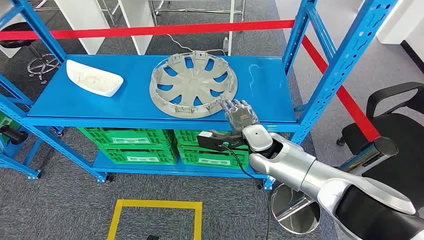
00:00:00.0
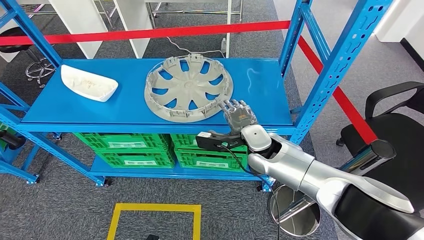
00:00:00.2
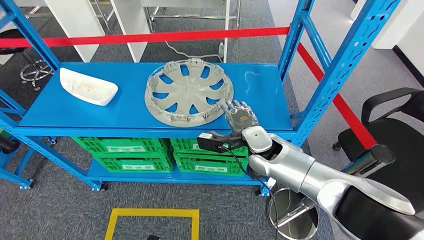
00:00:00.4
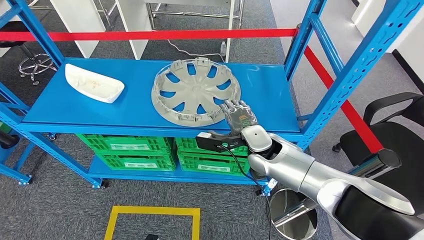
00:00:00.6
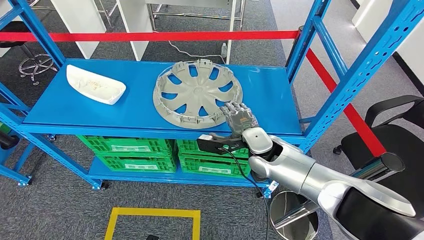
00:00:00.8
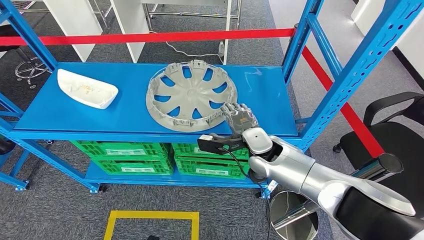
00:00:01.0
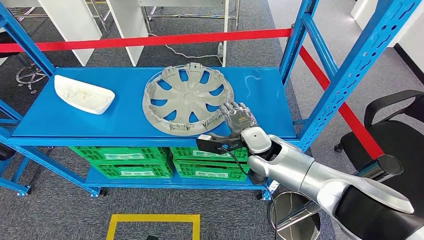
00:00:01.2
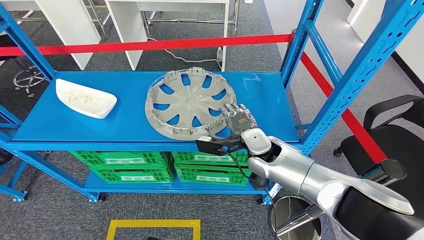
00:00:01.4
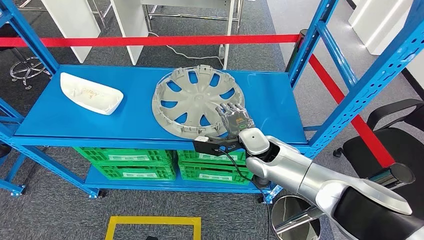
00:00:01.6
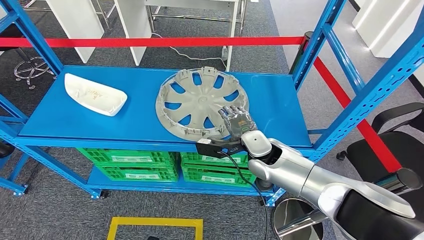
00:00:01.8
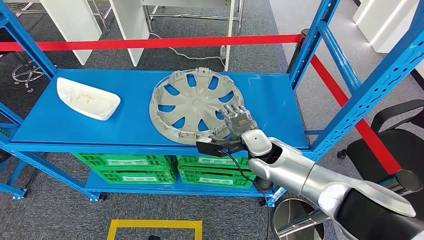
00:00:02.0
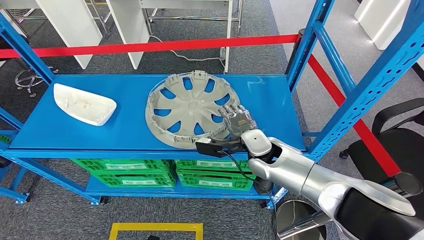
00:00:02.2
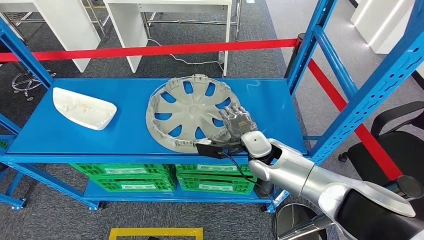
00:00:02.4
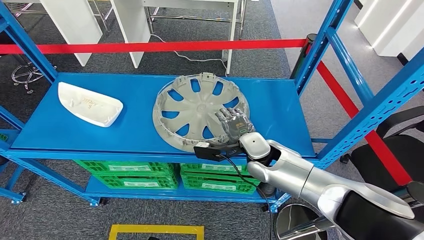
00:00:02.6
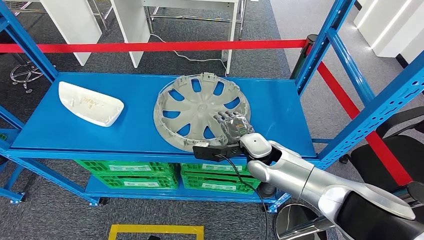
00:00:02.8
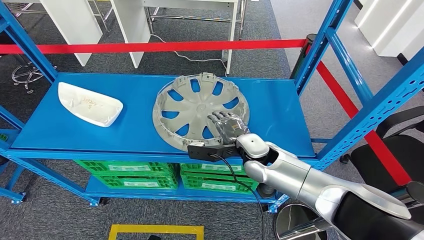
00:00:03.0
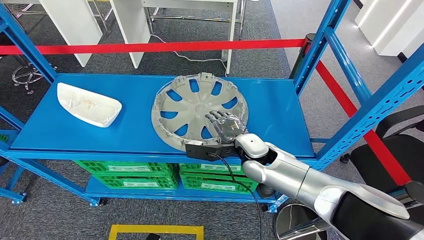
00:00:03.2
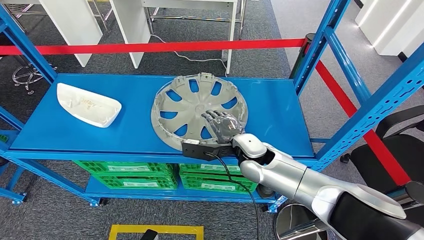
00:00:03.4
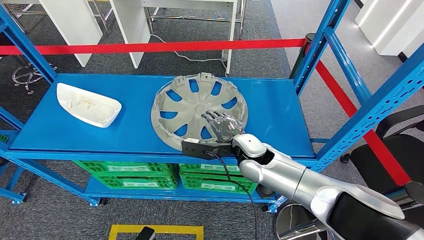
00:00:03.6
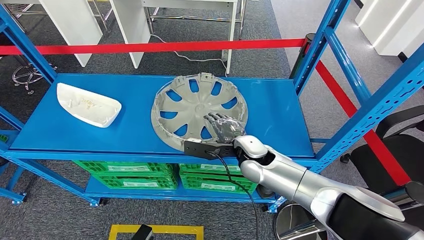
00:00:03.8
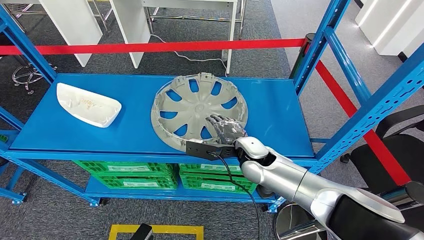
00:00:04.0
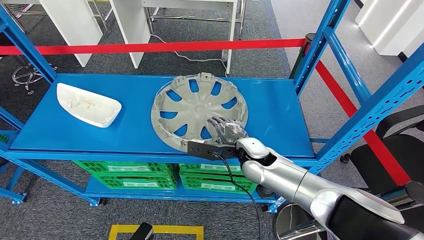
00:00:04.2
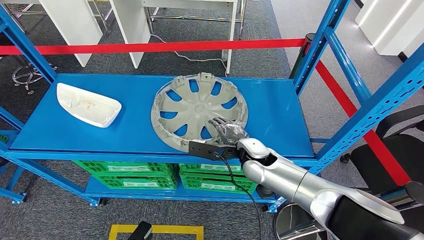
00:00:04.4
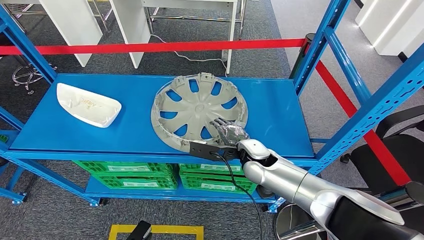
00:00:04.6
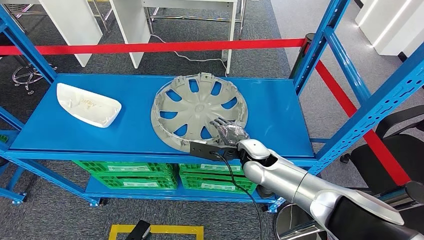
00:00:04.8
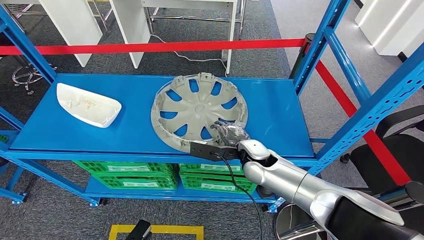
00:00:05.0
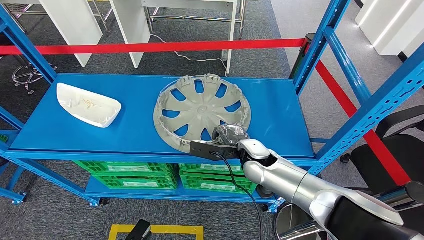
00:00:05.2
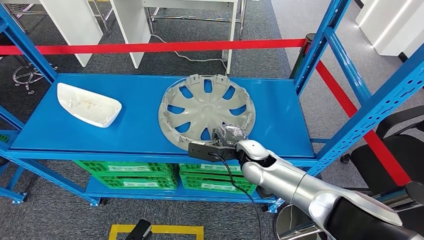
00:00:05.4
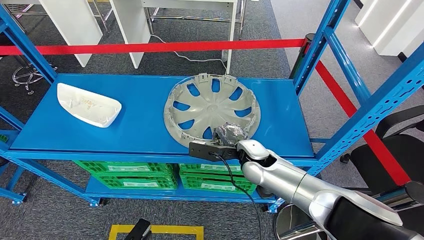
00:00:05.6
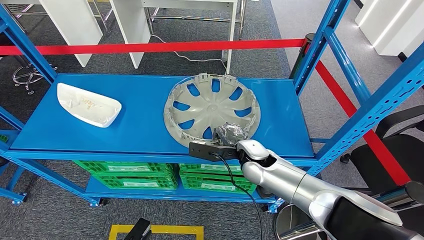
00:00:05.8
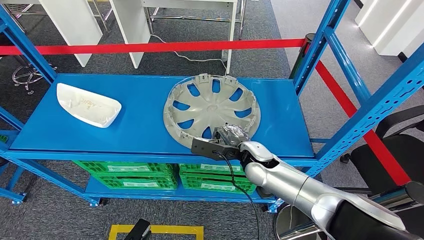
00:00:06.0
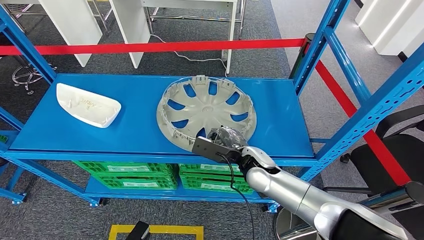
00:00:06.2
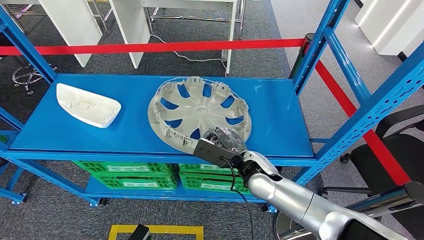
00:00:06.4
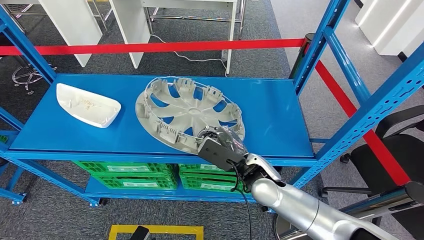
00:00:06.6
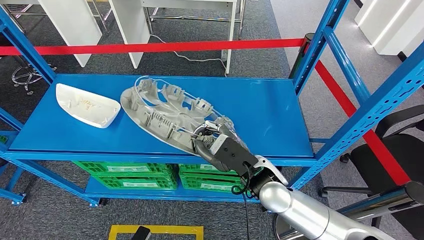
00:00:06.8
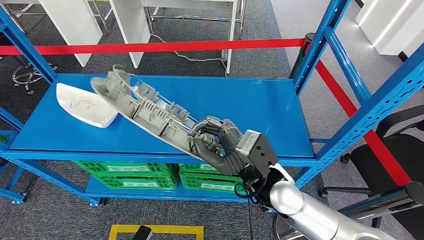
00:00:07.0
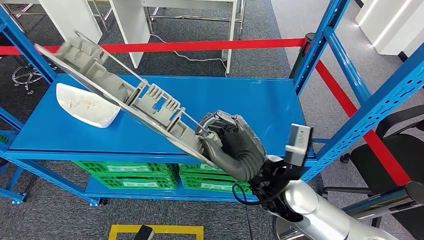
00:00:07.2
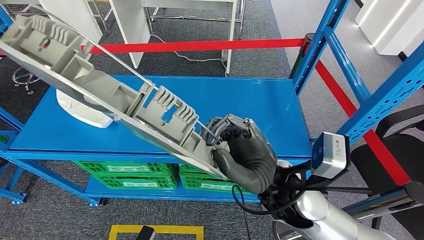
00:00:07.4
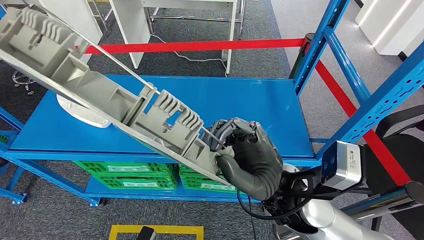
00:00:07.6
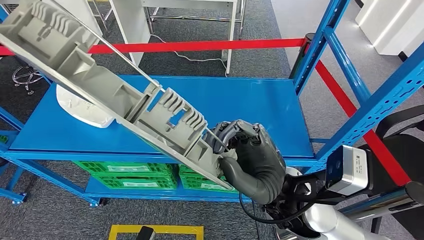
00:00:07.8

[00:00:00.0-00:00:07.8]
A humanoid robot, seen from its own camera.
Step, 00:00:00.0 to 00:00:07.6: Pick up the large parts from the shelf.
00:00:03.2 to 00:00:04.6: The left hand ends up roughly 5 cm from where it was.
